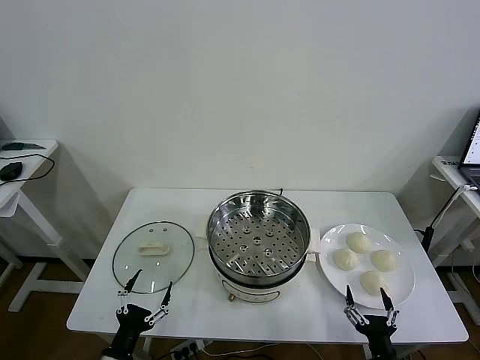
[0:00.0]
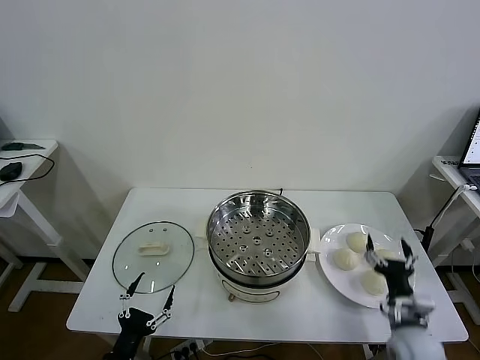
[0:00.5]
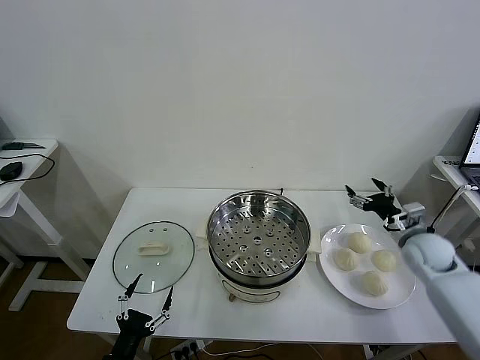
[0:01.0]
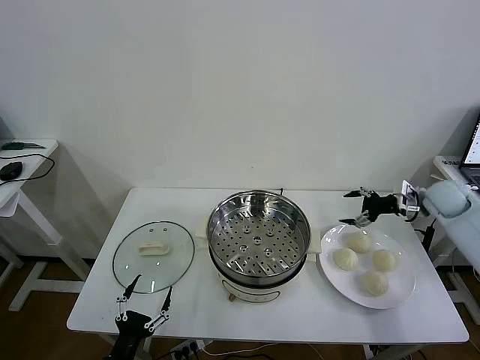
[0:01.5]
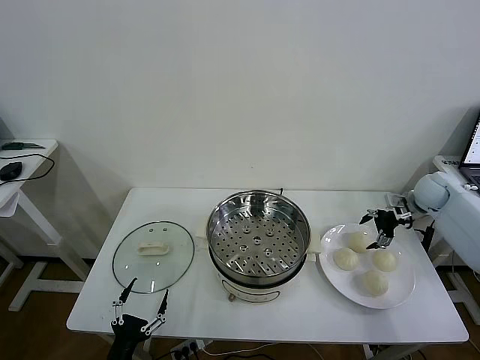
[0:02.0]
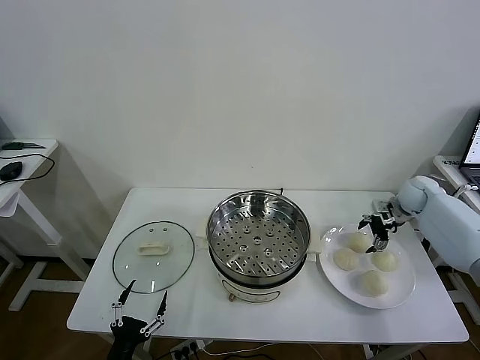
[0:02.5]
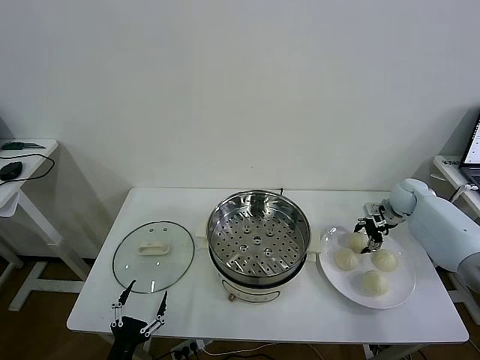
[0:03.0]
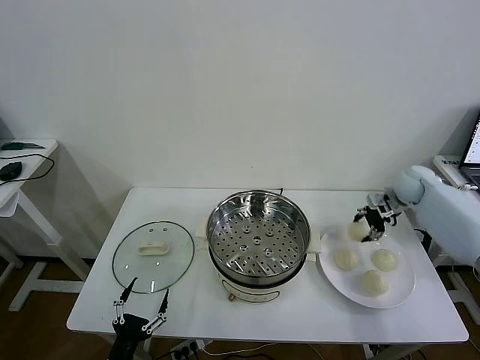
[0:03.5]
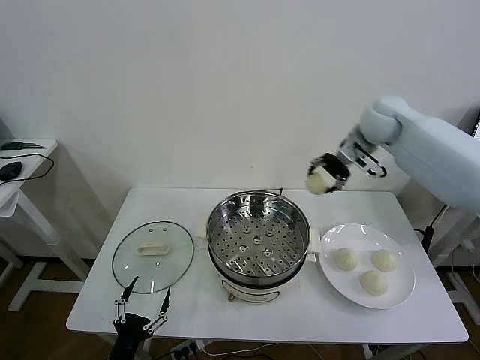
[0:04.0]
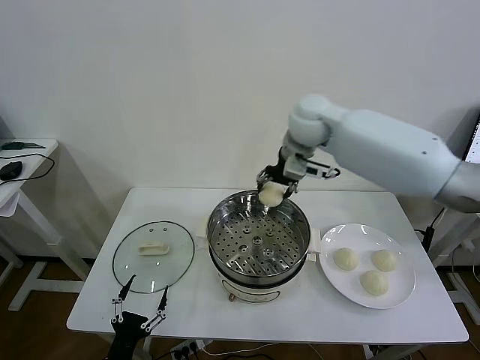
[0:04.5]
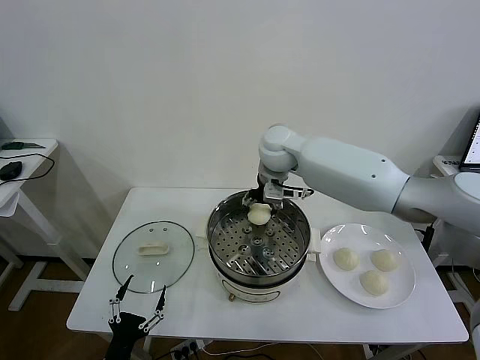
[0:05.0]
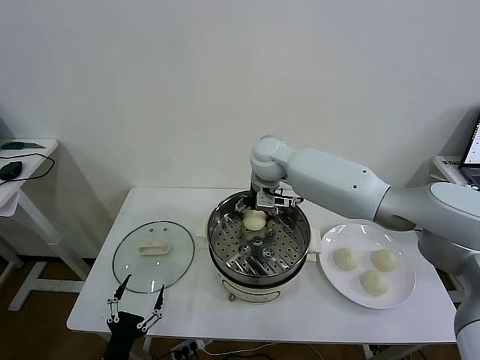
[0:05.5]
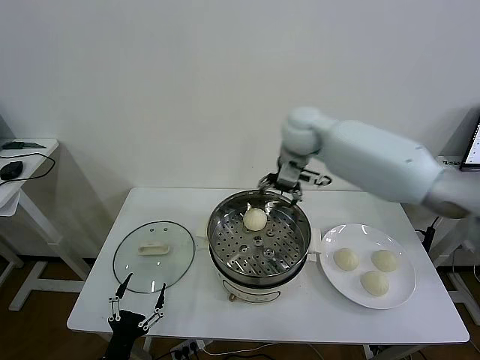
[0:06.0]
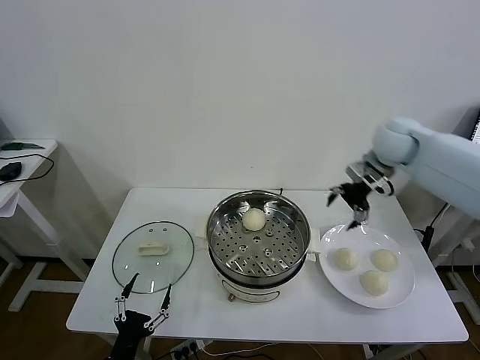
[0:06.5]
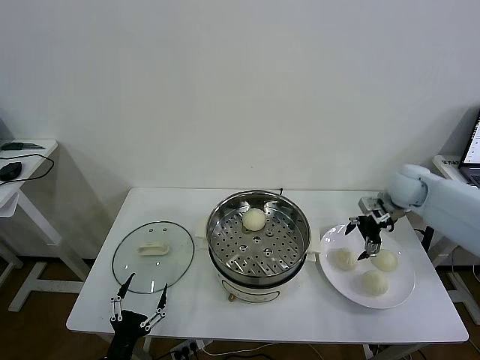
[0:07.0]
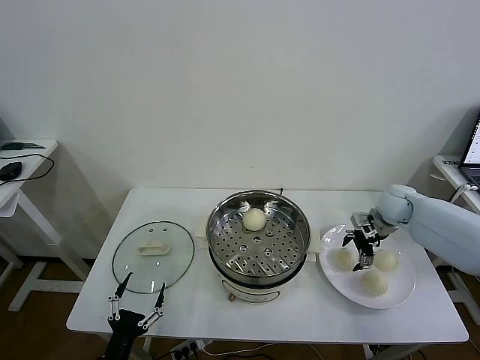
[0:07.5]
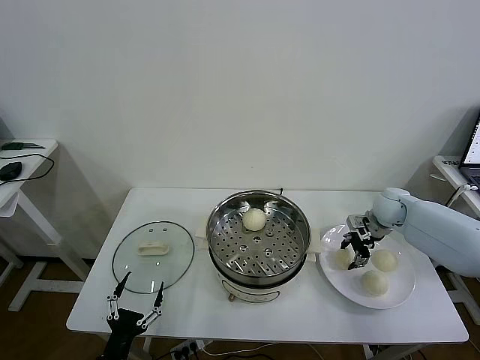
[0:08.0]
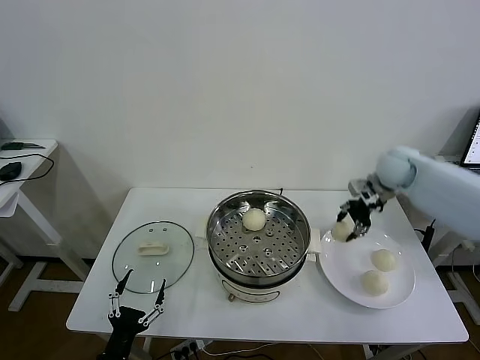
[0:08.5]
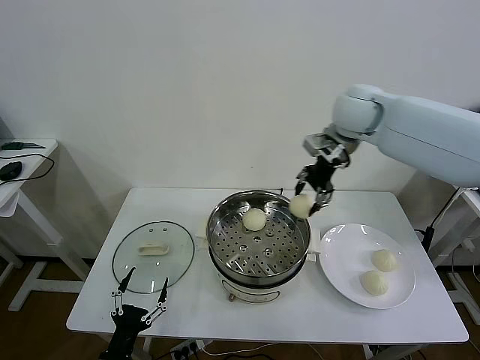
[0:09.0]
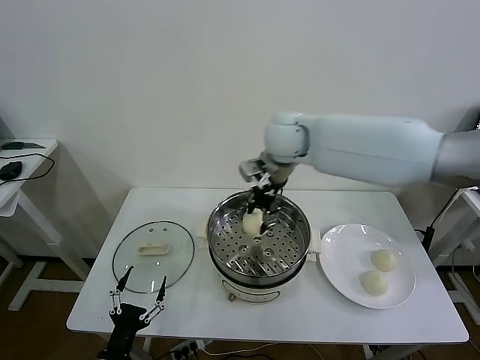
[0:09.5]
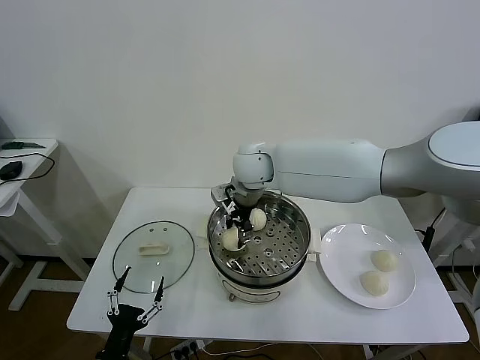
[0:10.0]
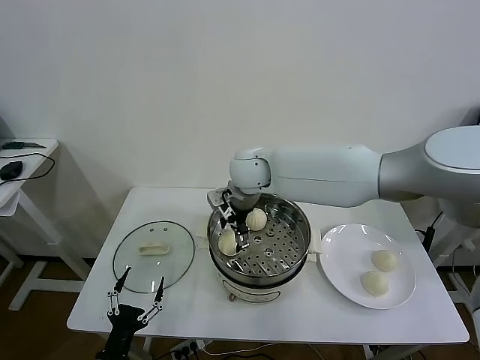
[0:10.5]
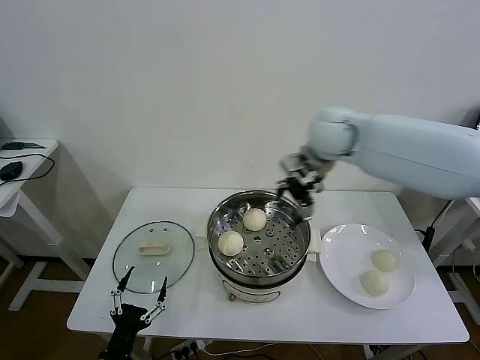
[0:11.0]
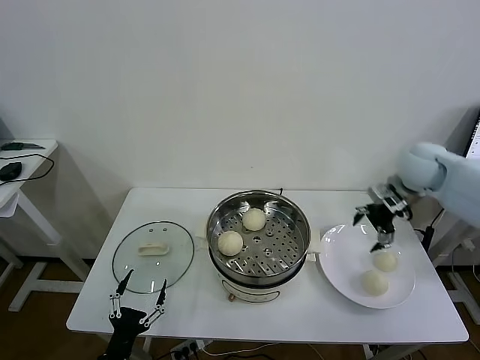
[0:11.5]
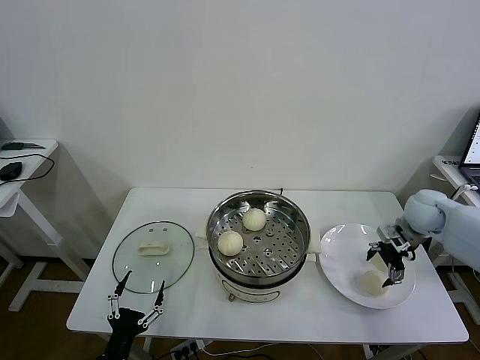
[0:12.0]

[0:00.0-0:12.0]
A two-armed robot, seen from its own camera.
Task of the whole recording: take steamed baozi put them in steamer then cover it.
Step, 0:00.0 to 0:03.0: Grasp the baozi in the plate with right gripper.
Step, 0:03.5 to 0:05.5: Place the baozi on the steamer with right gripper.
Step, 0:06.0 to 0:07.5: Grasp the baozi in the plate with right gripper.
Step, 0:08.0 to 0:10.0: Place the baozi on the steamer with right gripper.
0:02.0 to 0:04.0: The right gripper goes approximately 25 cm to the left and upward, and closes.
0:04.0 to 0:06.0: The right gripper heads to the left, covering about 15 cm, and opens up.
0:06.0 to 0:08.0: The right gripper moves to the right and downward, roughly 35 cm, and closes its fingers.
0:08.0 to 0:10.0: The right gripper goes approximately 40 cm to the left and upward.
0:10.0 to 0:12.0: The right gripper heads to the right, covering approximately 40 cm, and opens up.

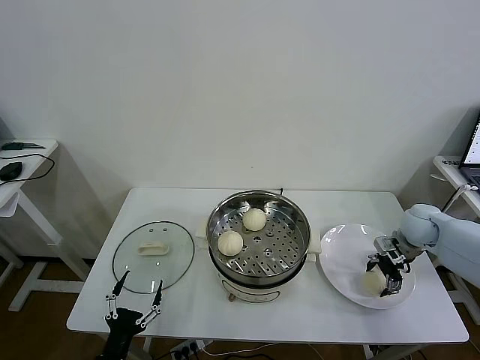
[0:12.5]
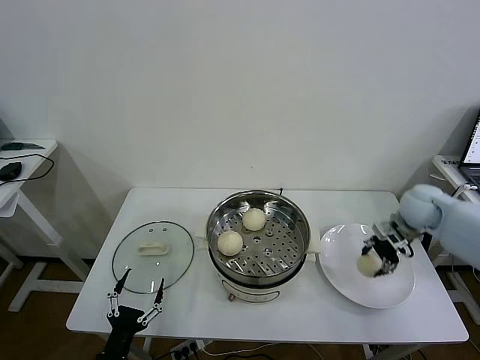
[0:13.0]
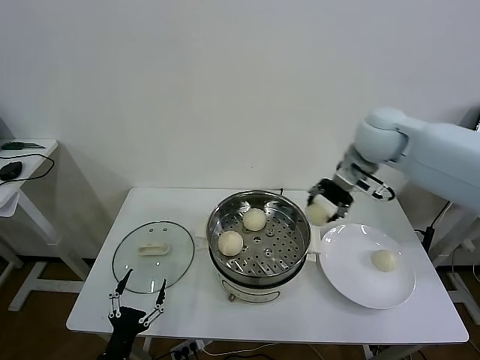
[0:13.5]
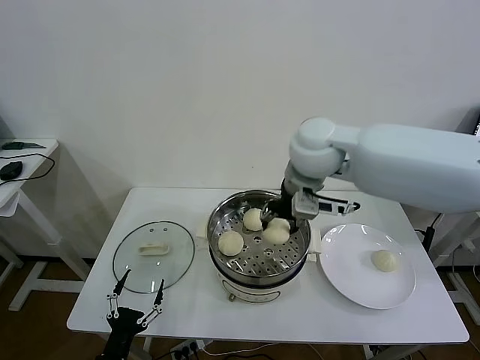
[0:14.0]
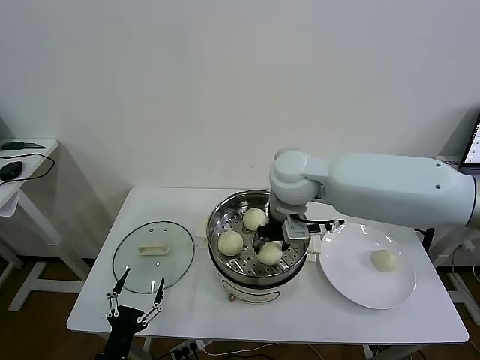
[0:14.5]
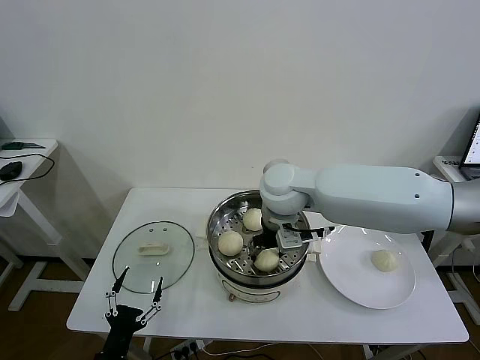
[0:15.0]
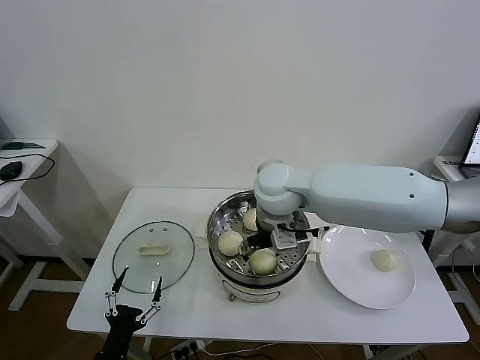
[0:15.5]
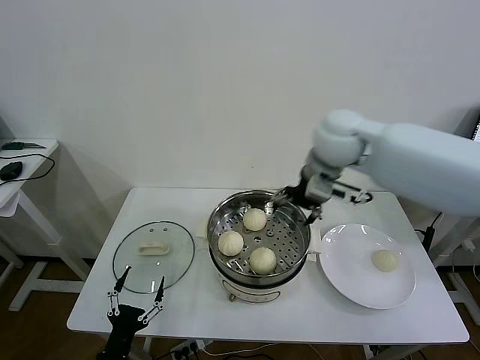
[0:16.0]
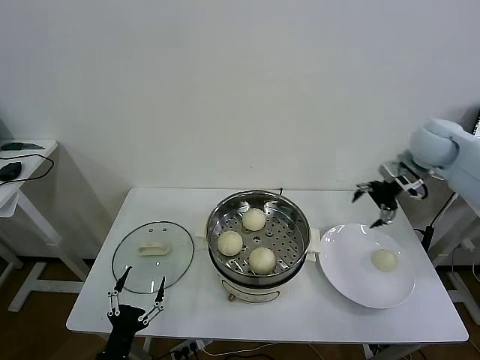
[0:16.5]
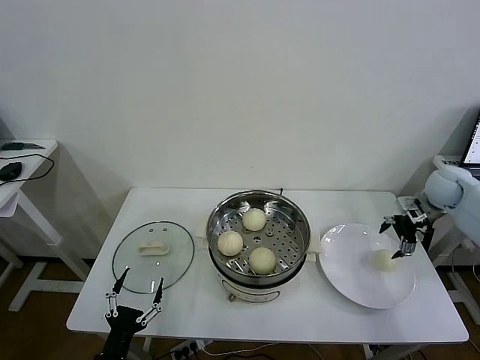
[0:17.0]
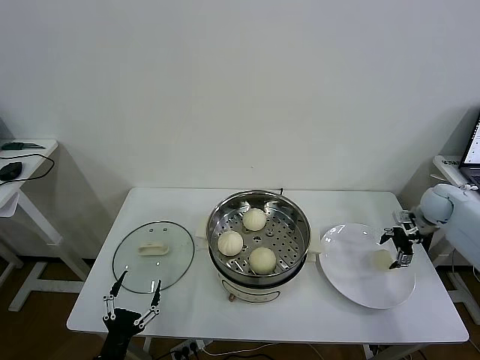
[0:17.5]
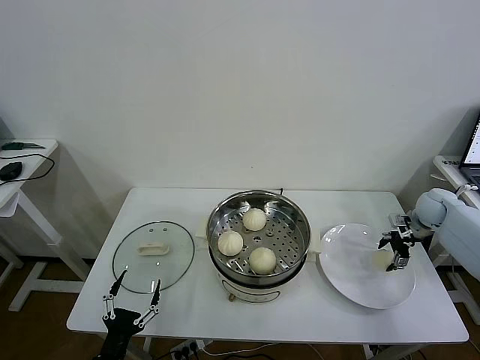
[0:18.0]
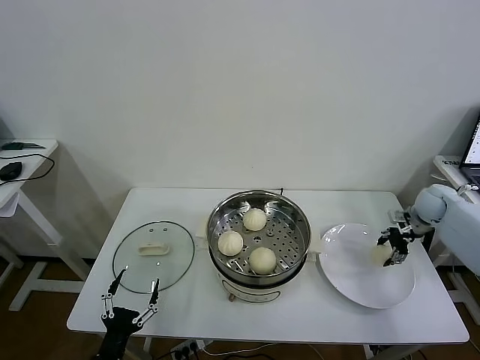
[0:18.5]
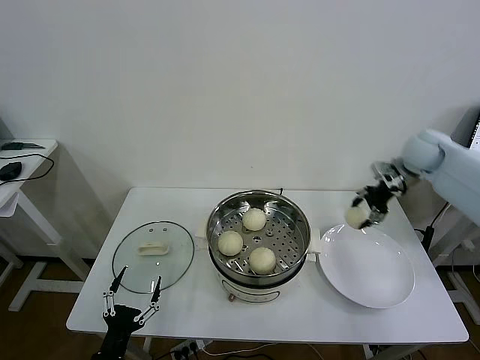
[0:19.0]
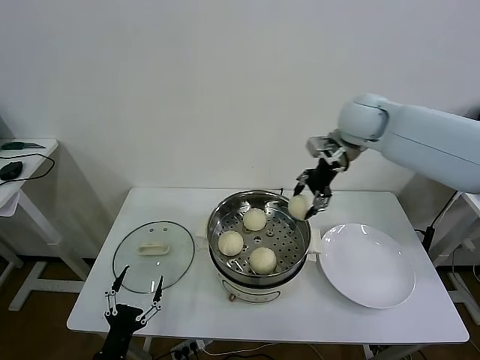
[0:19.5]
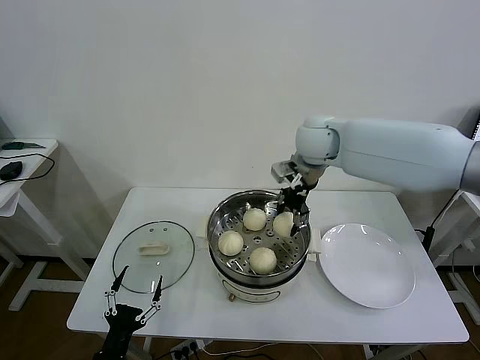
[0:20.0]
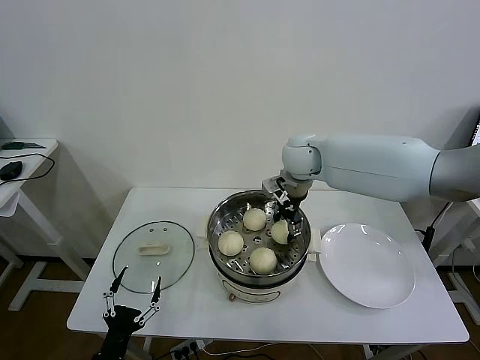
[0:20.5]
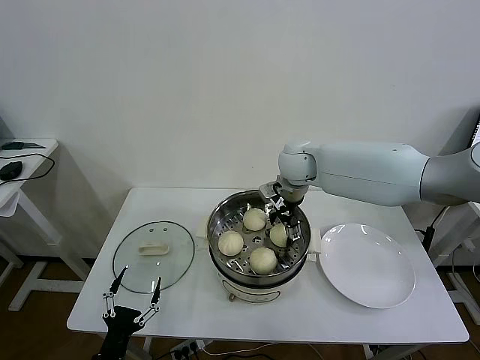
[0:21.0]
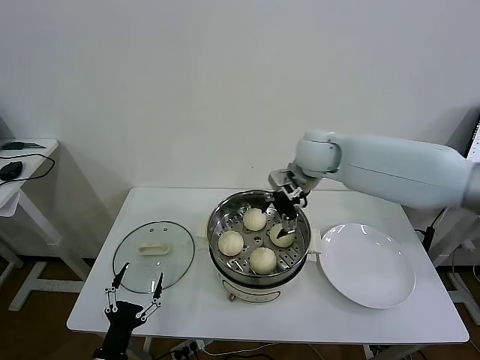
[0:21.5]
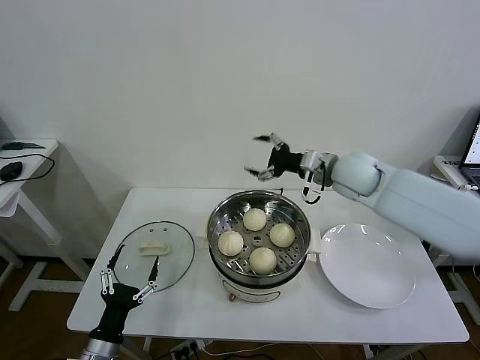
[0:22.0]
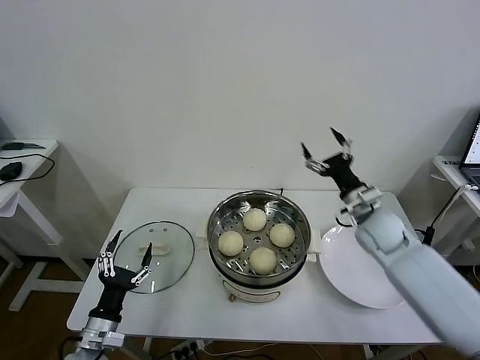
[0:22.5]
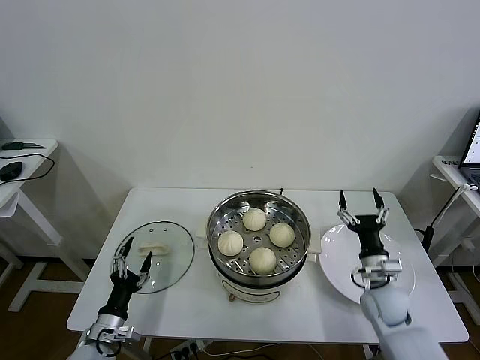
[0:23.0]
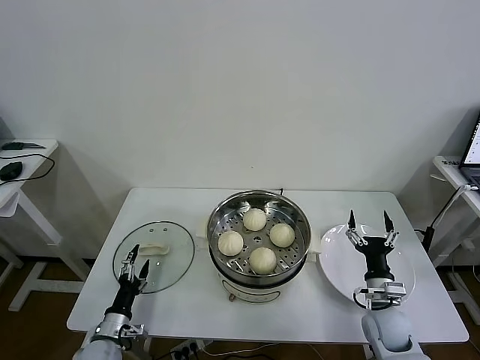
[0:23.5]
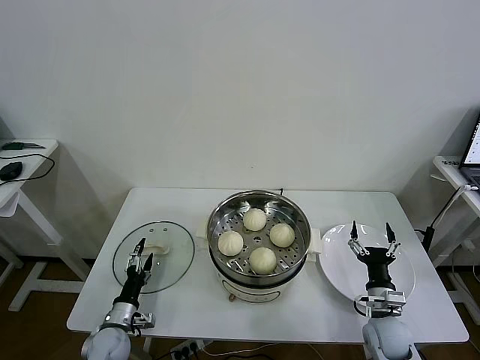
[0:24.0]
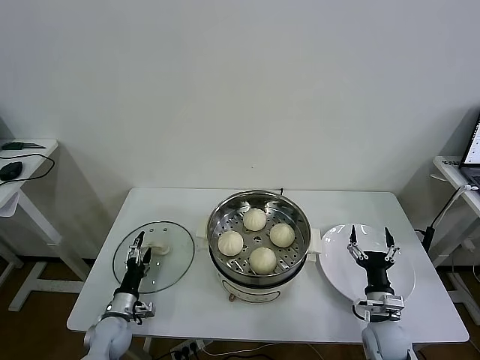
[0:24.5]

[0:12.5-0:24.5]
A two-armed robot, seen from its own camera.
Task of the whole recording: take steamed baozi put them in steamer then cover it.
Step, 0:13.0 to 0:15.0: Place the baozi on the steamer with right gripper.
Step, 0:15.5 to 0:18.5: Grasp the baozi in the plate with right gripper.
Step, 0:19.0 to 0:21.0: Place the baozi on the steamer with right gripper.
0:12.5 to 0:14.5: The right gripper goes about 40 cm to the left and upward.
0:14.5 to 0:16.5: The right gripper is displaced to the right by roughly 30 cm, and opens.
0:16.5 to 0:18.5: The right gripper travels downward and to the right by approximately 20 cm, and closes up.
0:18.5 to 0:20.5: The right gripper shifts about 35 cm to the left.
0:20.5 to 0:22.5: The right gripper travels to the right, downward and backward by roughly 25 cm, and opens; the left gripper moves forward, some 5 cm.
0:22.5 to 0:24.5: The left gripper moves downward and forward, approximately 15 cm. Meanwhile the right gripper travels downward and backward by roughly 25 cm.

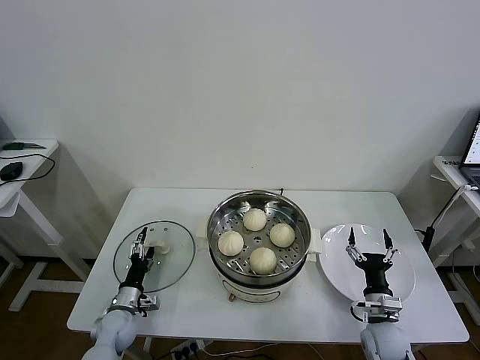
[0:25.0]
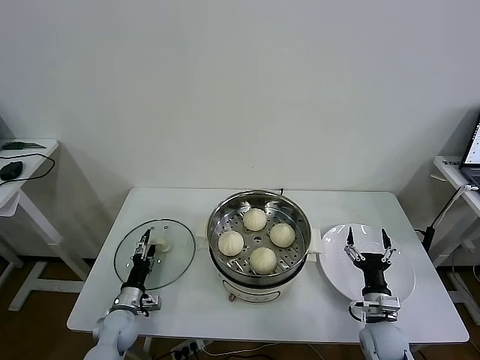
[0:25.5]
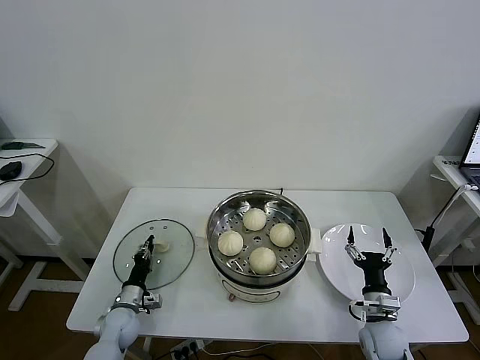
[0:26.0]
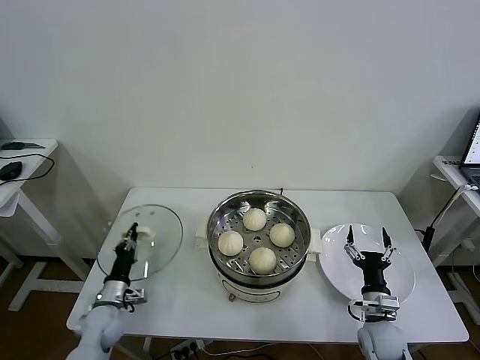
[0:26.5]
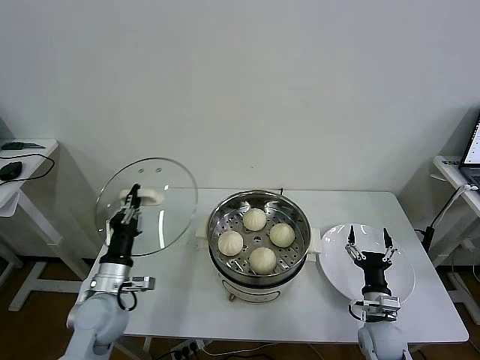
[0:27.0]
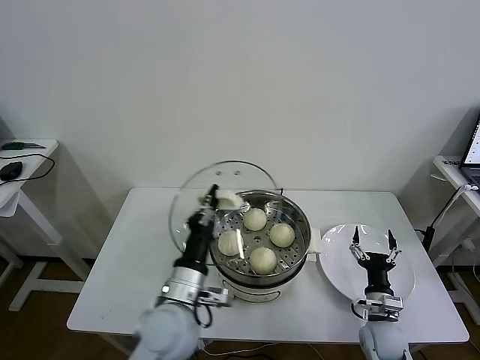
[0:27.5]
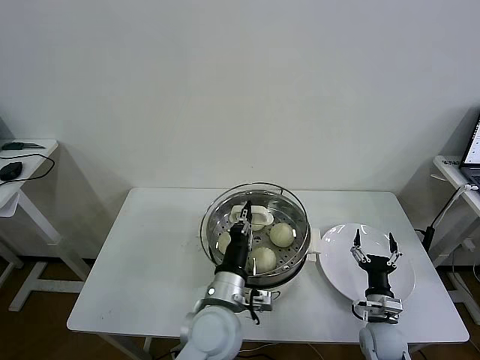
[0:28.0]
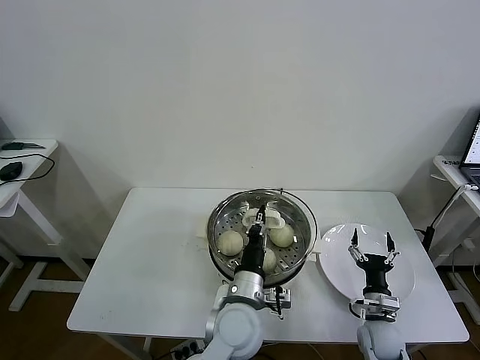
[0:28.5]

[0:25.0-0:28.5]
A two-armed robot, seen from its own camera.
Task of the whole recording: take steamed baozi put them in steamer then cover it.
0:25.0 to 0:27.0: The left gripper is displaced upward by roughly 15 cm, and closes up.
0:27.0 to 0:28.5: The left gripper travels to the right by roughly 30 cm.
